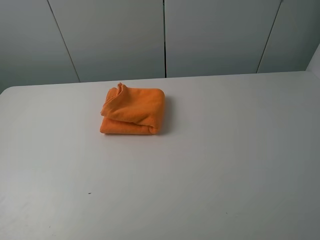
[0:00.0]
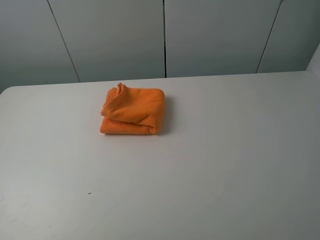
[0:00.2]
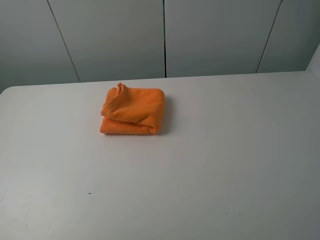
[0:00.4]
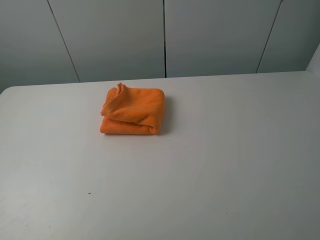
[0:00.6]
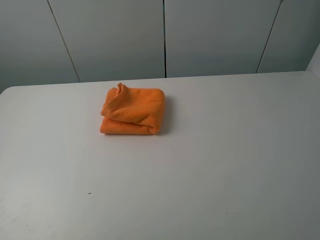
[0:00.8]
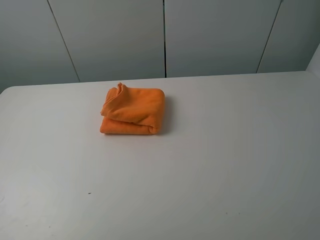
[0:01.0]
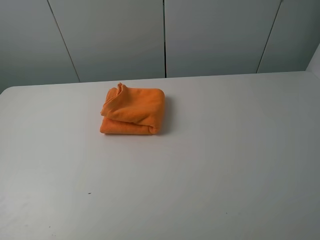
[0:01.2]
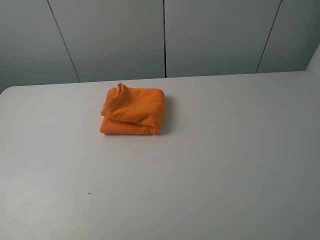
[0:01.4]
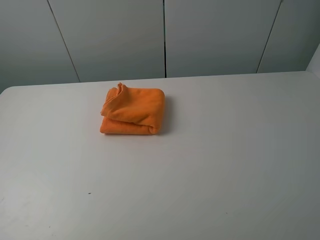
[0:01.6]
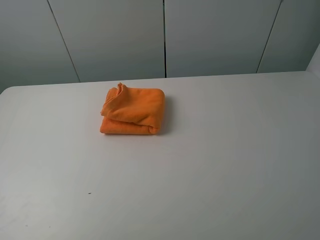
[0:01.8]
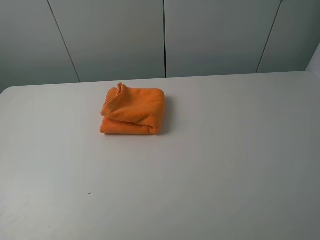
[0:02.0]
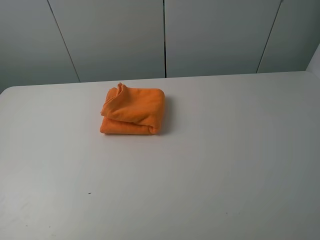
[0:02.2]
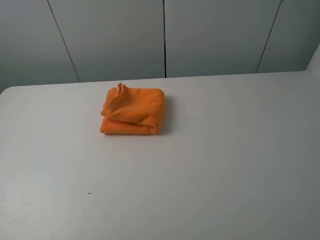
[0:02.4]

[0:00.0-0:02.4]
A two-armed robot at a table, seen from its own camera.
Task of the whole recording: fold the towels on the table.
0:01.2 to 0:02.4: Both grippers stay about where they are.

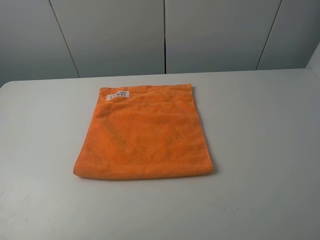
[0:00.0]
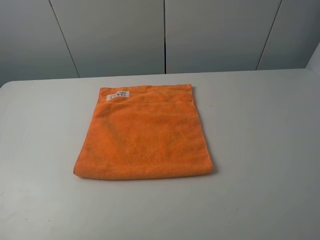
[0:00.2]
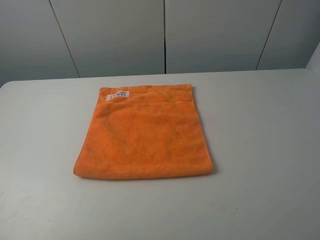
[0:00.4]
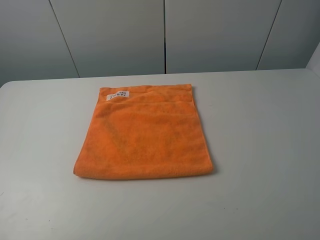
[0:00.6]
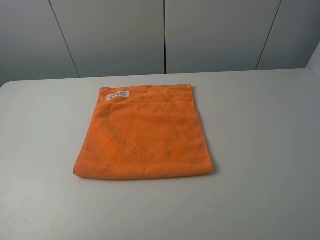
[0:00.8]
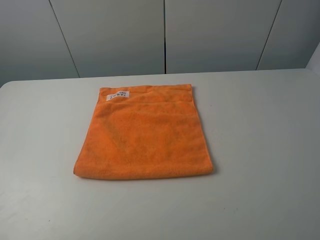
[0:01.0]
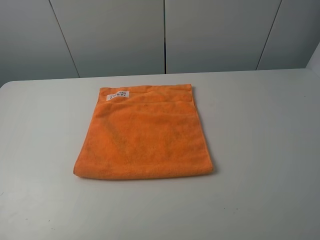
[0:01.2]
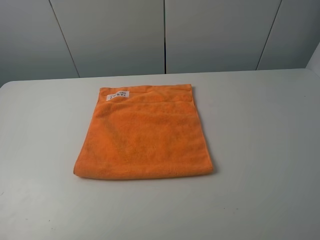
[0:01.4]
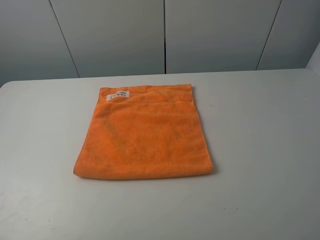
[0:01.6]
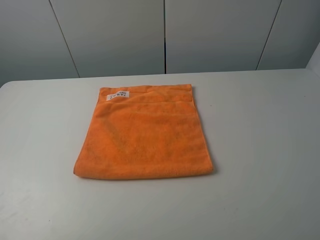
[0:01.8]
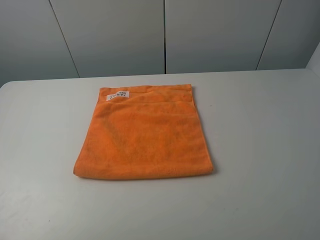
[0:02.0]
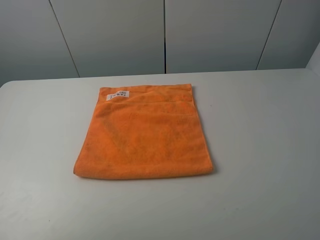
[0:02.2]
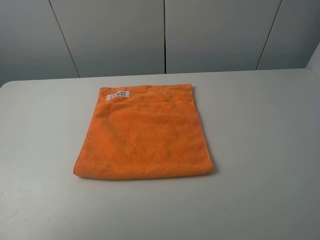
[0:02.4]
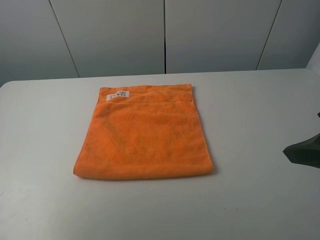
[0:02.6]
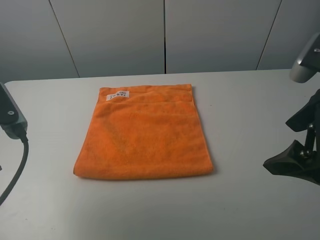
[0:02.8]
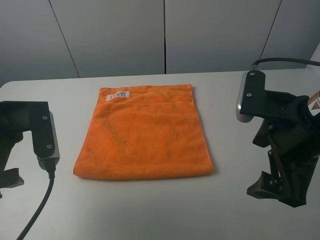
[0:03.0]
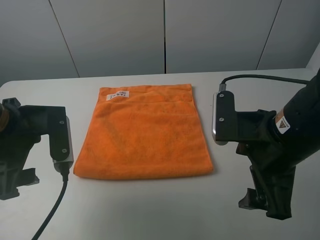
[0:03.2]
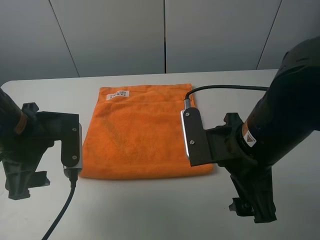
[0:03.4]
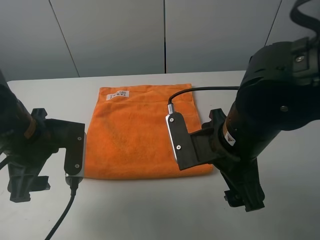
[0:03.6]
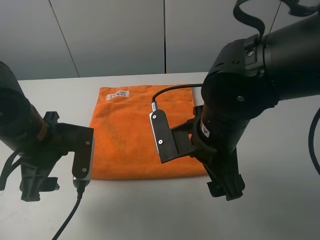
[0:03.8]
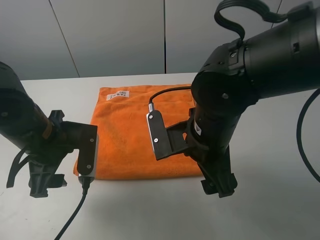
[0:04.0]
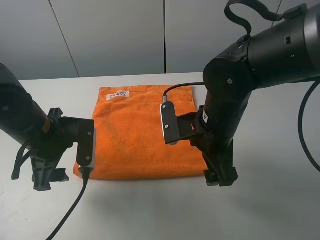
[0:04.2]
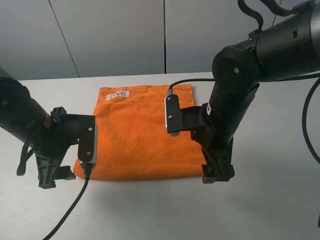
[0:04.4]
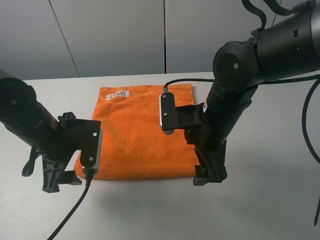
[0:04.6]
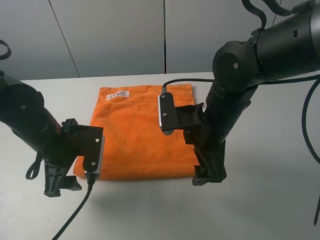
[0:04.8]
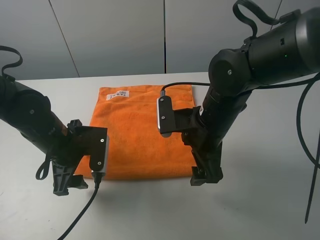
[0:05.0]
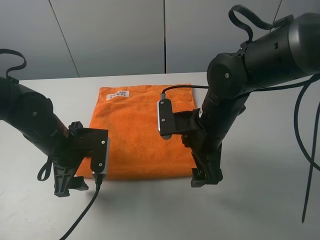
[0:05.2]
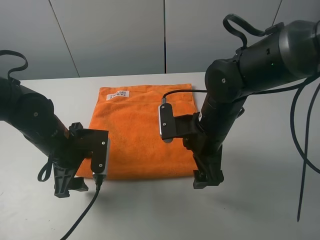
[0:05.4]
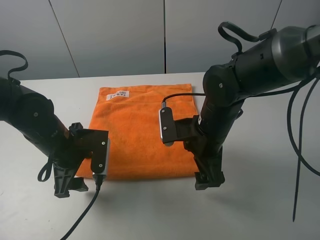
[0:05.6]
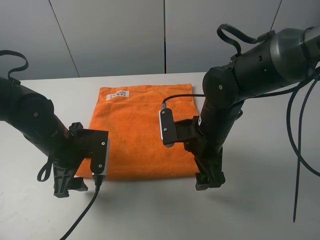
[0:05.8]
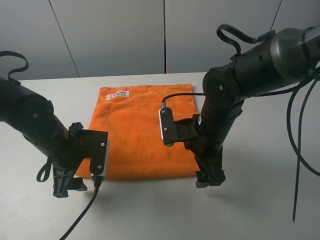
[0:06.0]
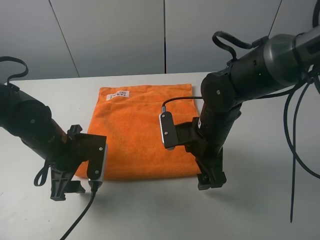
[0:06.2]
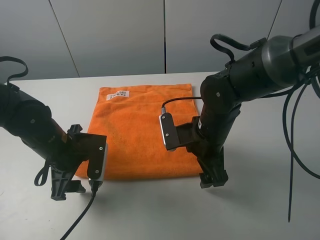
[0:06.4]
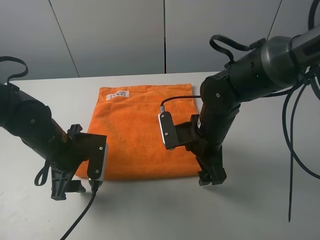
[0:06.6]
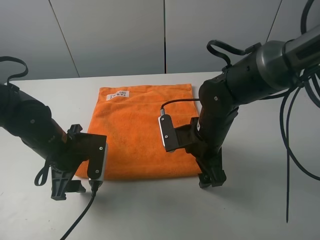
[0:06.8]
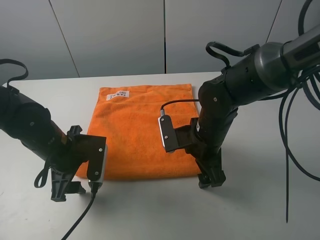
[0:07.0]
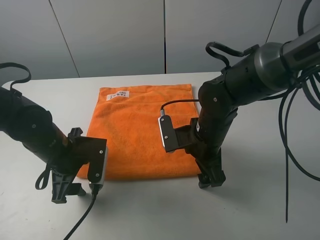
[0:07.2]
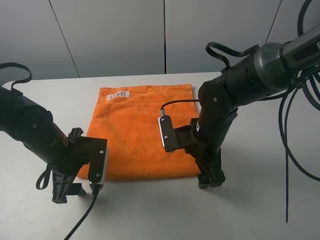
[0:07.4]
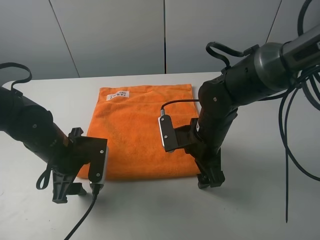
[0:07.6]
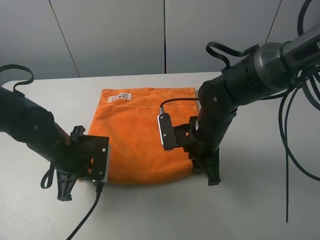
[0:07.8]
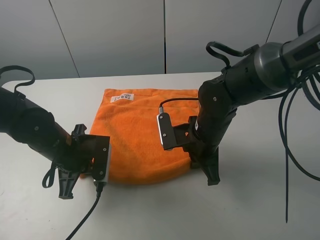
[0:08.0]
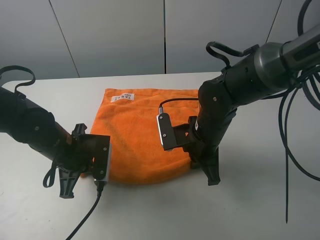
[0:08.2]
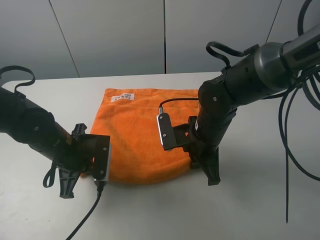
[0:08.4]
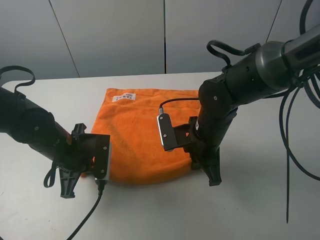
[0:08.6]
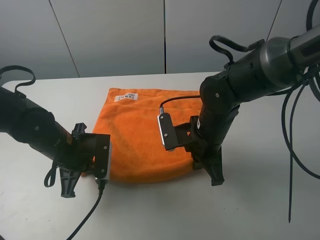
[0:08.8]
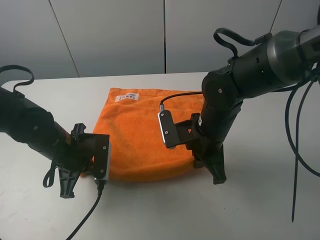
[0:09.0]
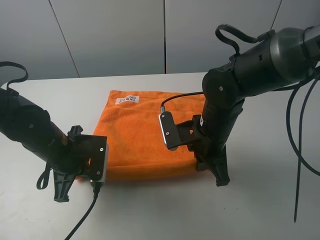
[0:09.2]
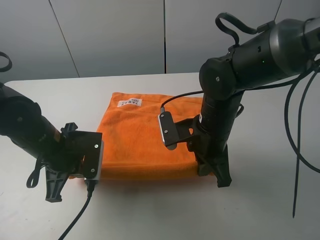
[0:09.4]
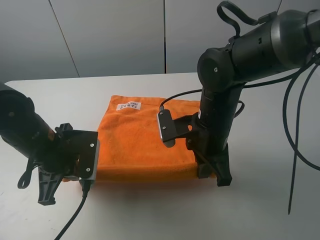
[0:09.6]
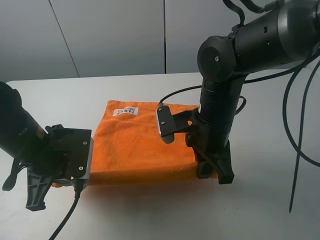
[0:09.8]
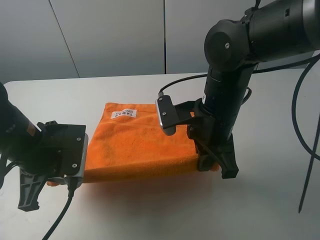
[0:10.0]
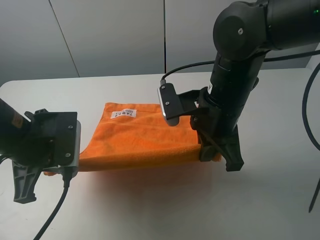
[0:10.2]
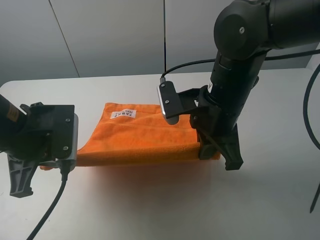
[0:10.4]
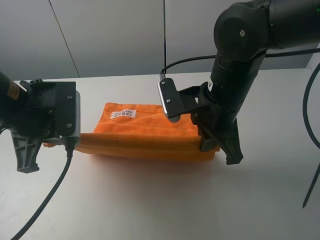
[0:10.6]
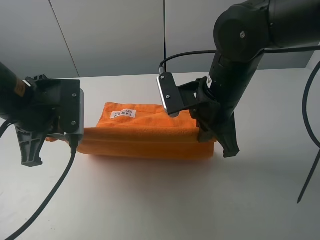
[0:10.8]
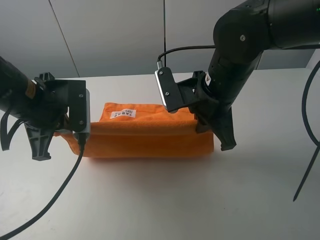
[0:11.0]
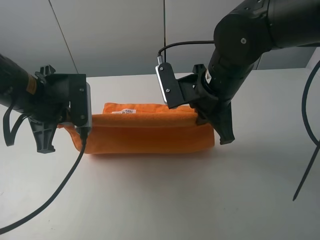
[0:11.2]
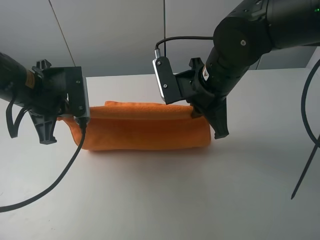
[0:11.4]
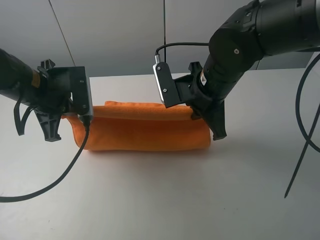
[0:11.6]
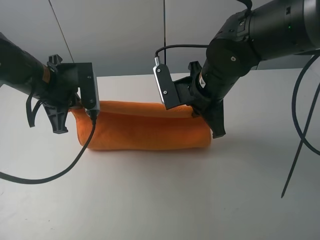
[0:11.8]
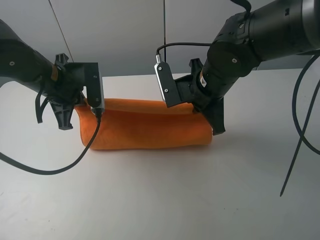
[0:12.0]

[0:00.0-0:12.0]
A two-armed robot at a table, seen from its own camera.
Task of the whole recording: fold the towels on the table.
Step, 0:00.0 to 0:08.4: Grasp the orange towel with the left gripper.
0:00.0 to 0:01.6: Neither gripper changes place.
0:01.6 to 0:03.0: The left gripper travels forward and to the right by approximately 20 cm. The right gripper moves forward, to the left and downward, some 20 cm.
0:03.0 to 0:04.4: The left gripper heads downward and forward, covering some 10 cm. The right gripper heads to the left, forward and downward, covering about 10 cm.
0:04.4 to 0:06.0: The grippers stay close to where they were, moving slightly.
0:06.0 to 0:07.6: The grippers stay close to where they were, moving slightly.
0:07.6 to 0:09.0: The right gripper closes up, while the left gripper closes its fingers.
0:09.0 to 0:10.4: The two grippers go about 10 cm upward.
0:10.4 to 0:12.0: The right gripper shifts about 5 cm forward; the left gripper heads forward, covering some 10 cm.

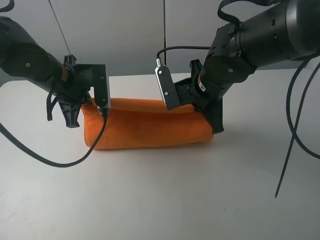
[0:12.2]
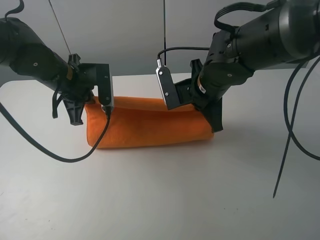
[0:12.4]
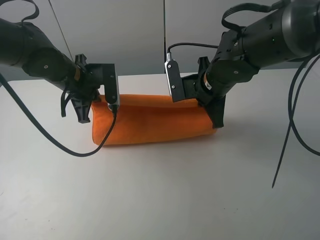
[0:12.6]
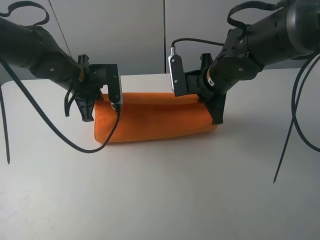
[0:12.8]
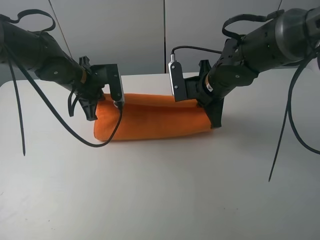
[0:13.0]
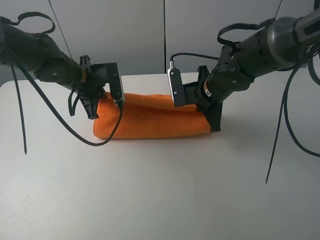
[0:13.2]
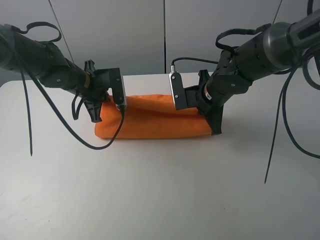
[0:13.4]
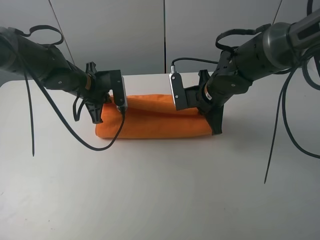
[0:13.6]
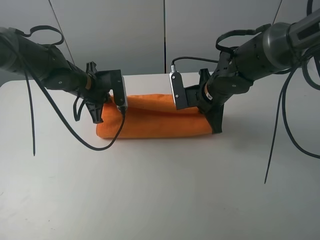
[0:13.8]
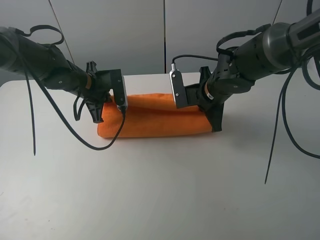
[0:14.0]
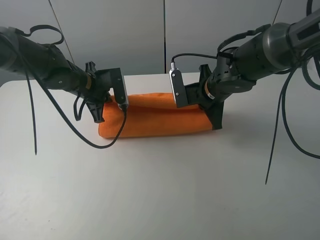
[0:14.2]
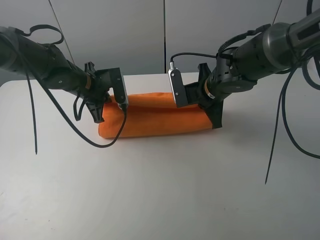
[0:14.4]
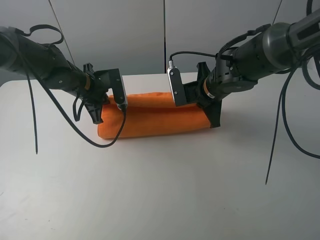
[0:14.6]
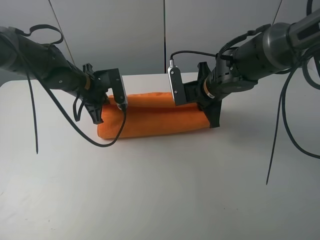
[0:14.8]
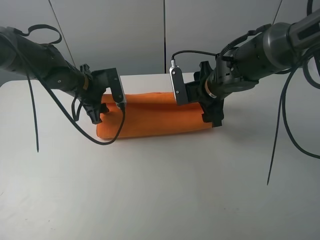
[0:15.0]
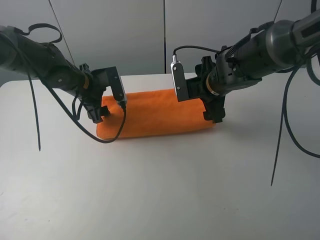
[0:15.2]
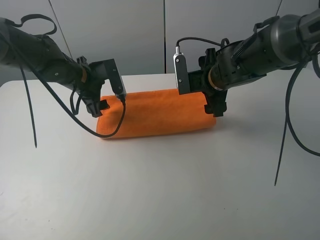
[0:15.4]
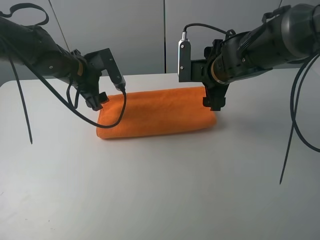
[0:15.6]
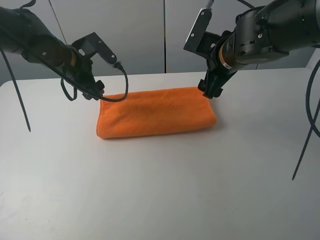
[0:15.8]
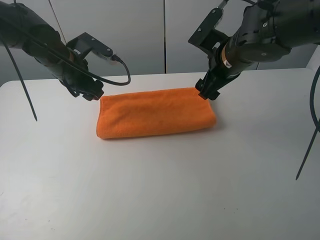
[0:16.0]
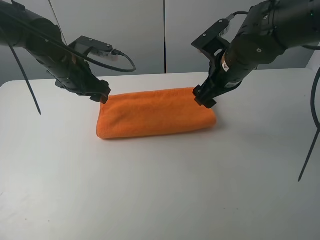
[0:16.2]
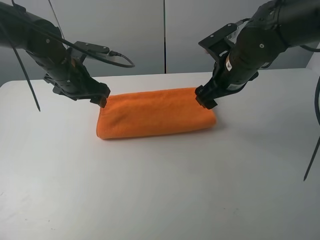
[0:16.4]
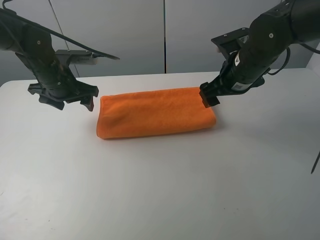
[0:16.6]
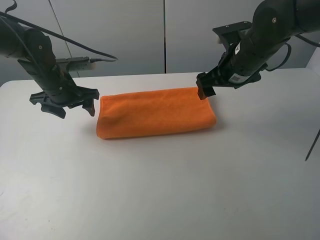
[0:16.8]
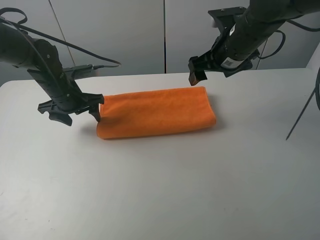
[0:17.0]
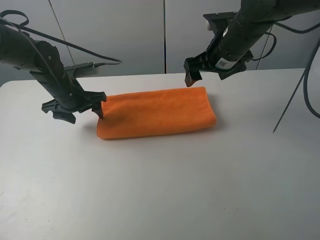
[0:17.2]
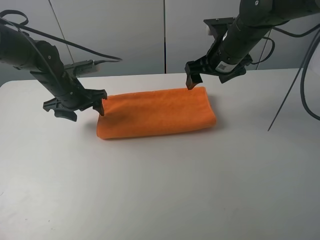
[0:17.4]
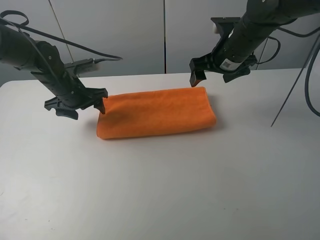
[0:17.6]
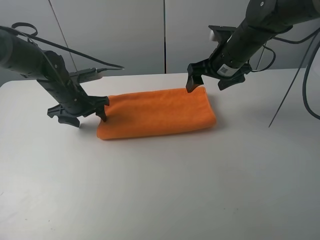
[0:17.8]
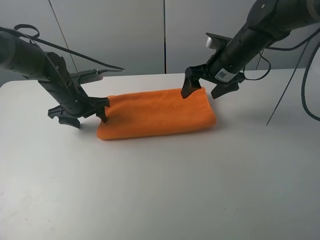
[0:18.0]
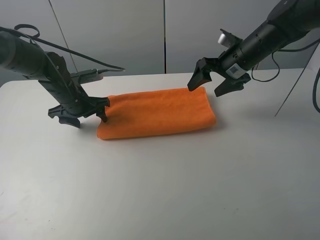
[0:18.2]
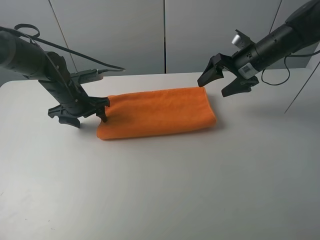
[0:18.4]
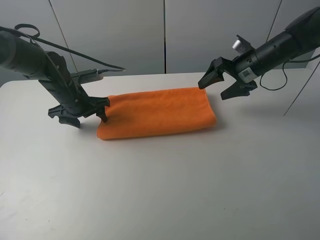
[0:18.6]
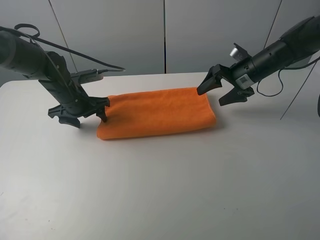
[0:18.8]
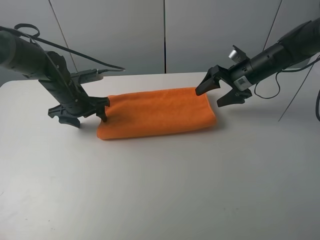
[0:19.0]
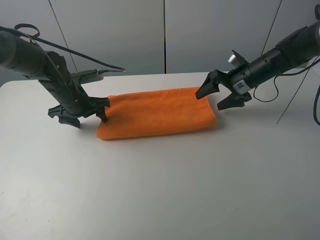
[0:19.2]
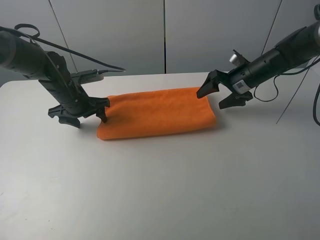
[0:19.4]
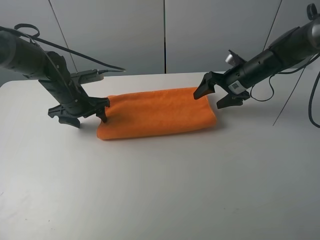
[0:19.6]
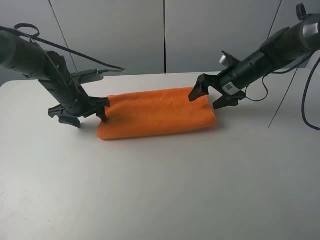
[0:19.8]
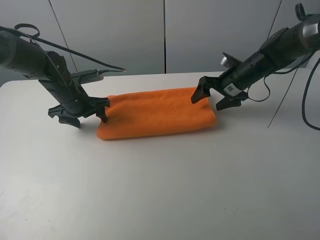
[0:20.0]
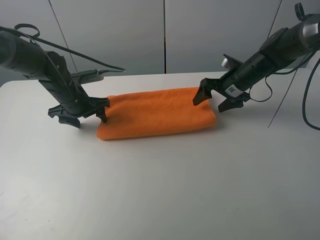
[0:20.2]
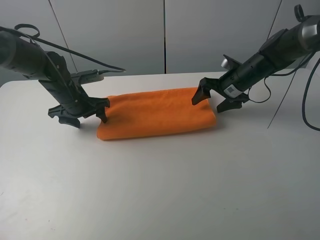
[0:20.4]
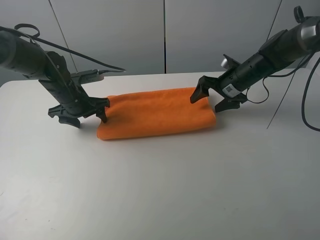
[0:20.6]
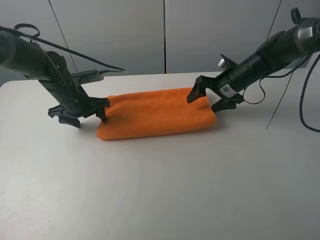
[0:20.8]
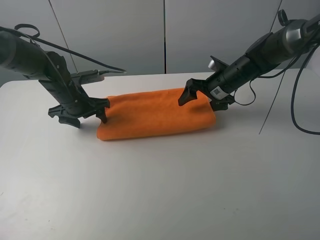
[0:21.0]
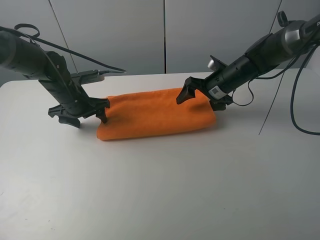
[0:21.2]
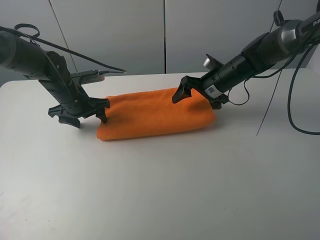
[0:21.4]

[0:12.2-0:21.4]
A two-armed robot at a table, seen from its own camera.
Task of the whole recording: fold the towels on the table.
Step, 0:12.2 to 0:15.6: Fold the orange towel upwards with the right gripper.
Step, 0:16.0 to 0:18.0: Press on the orange towel with the left gripper.
0:12.2 to 0:13.8: The left gripper heads forward and downward, covering some 10 cm. The right gripper moves roughly 5 cm.
0:13.8 to 0:15.2: The right gripper opens. The left gripper opens.
0:15.2 to 0:16.8: The right gripper goes roughly 5 cm upward. Meanwhile the left gripper shifts by about 5 cm.
0:16.8 to 0:18.4: The left gripper moves approximately 5 cm; the right gripper goes roughly 10 cm to the right and forward.
0:18.4 to 0:19.8: The right gripper shifts approximately 5 cm downward.
0:19.8 to 0:21.4: There are only small adjustments of the grippers.
